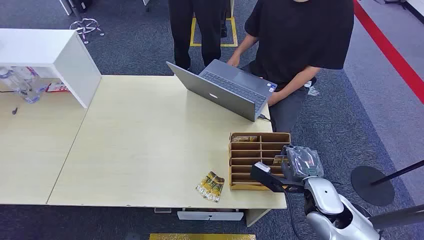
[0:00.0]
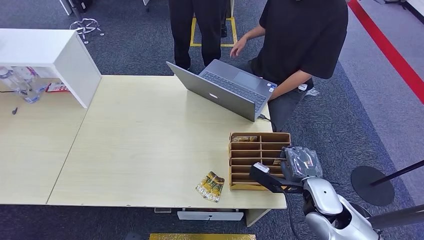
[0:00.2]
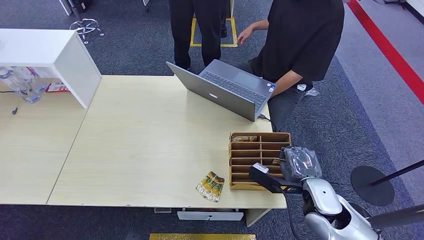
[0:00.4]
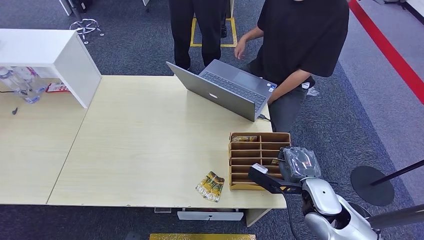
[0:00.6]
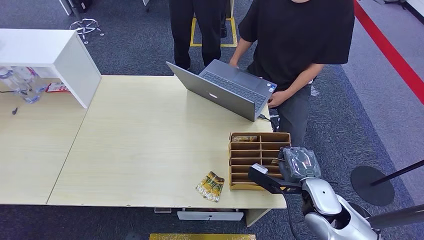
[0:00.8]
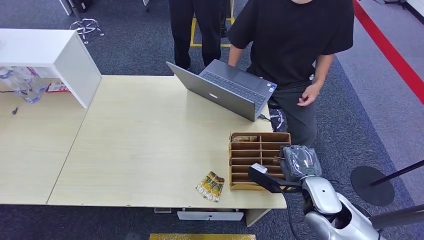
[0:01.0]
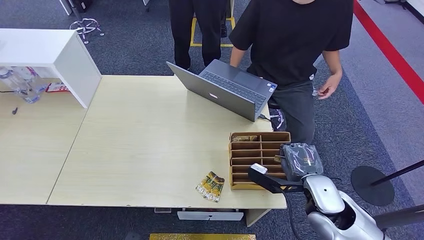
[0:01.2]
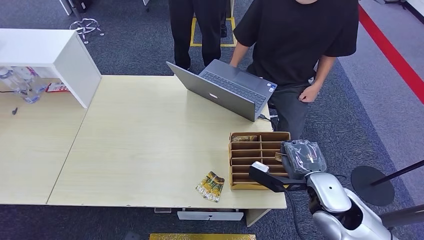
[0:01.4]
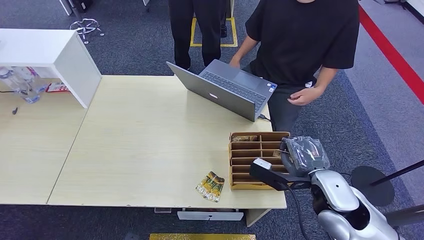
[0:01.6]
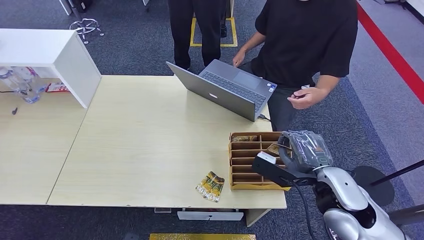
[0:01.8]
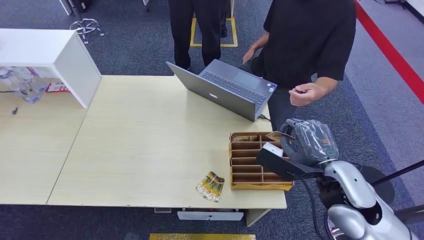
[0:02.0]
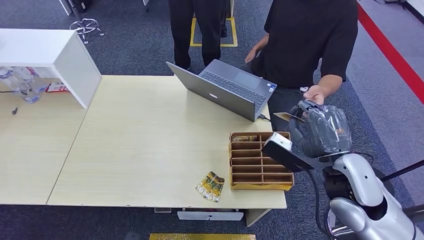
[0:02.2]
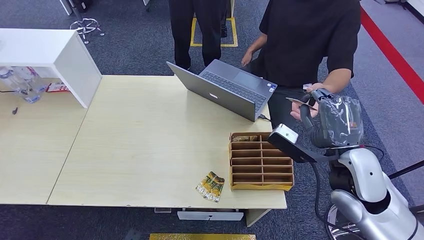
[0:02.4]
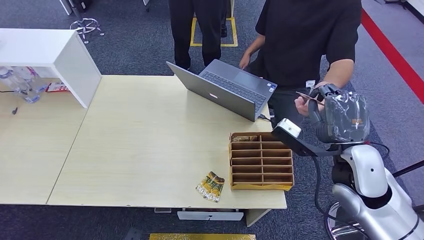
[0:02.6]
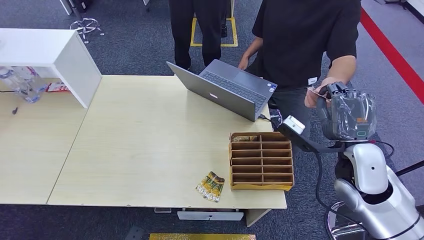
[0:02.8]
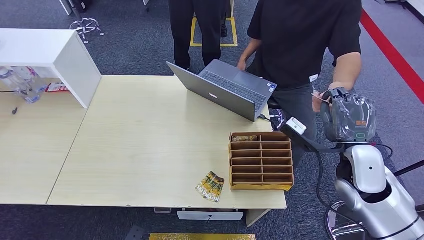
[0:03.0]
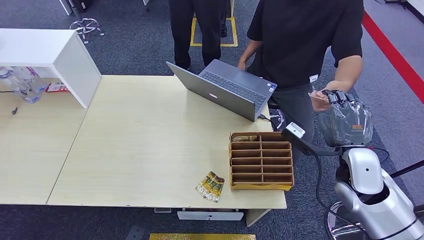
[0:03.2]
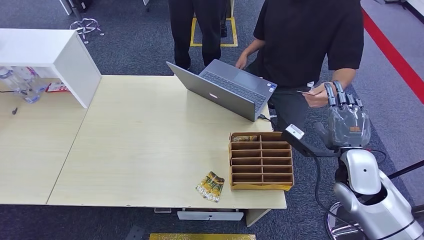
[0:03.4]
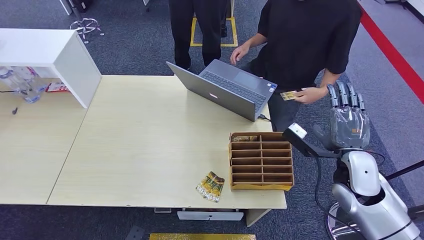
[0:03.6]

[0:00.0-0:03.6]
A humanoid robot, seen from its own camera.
Task of the whole recording: Pick up the card and hand it over to the target person.
Step, 0:00.0 to 0:02.2: Pick up the key card from the card box.
Step, 0:02.4 to 0:03.6: Hand the key card to the target.
0:01.8 to 0:03.6: The right hand moves downward, about 5 cm.

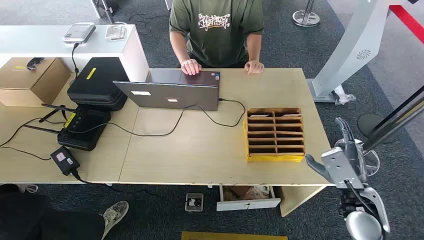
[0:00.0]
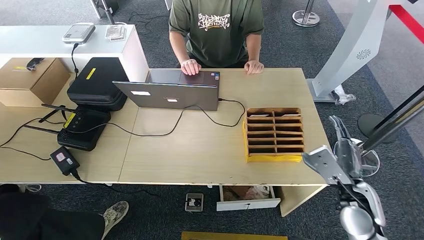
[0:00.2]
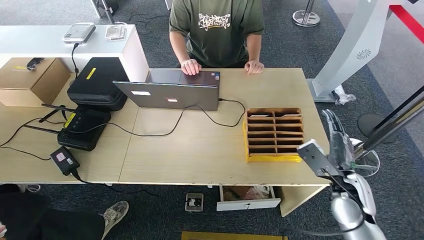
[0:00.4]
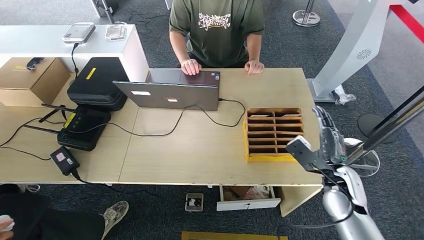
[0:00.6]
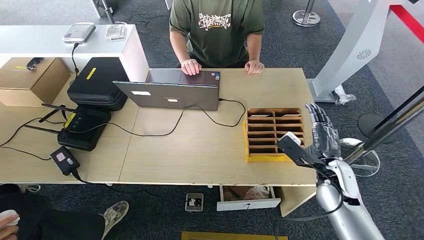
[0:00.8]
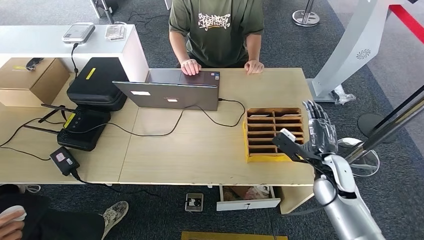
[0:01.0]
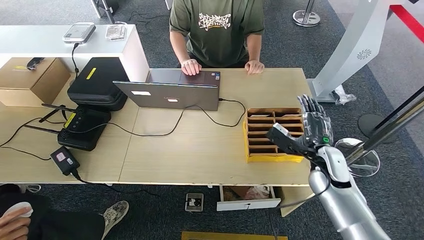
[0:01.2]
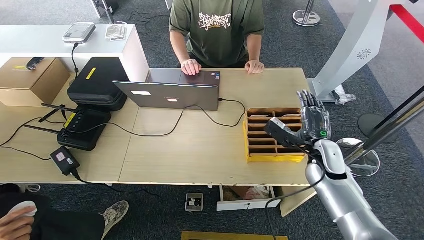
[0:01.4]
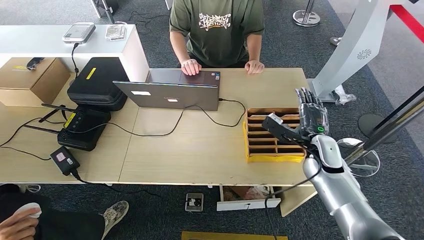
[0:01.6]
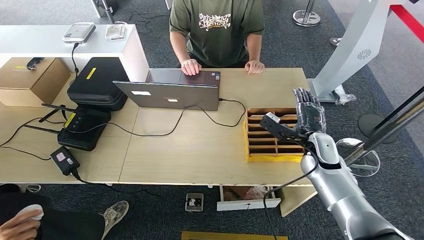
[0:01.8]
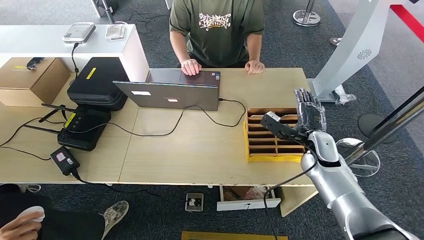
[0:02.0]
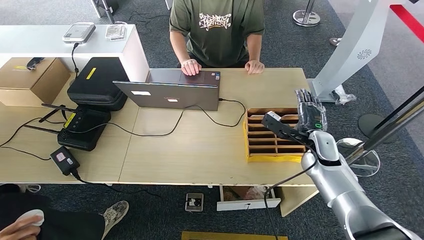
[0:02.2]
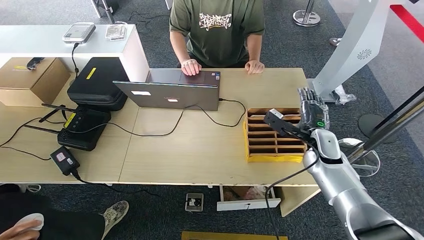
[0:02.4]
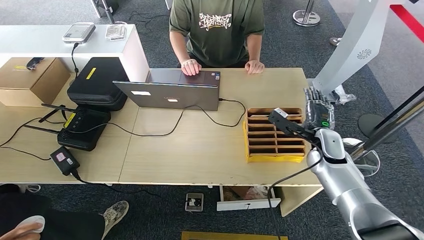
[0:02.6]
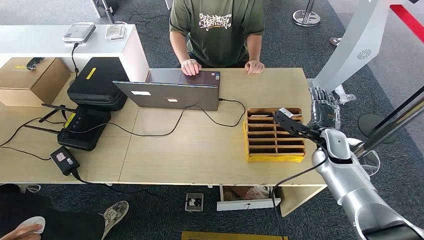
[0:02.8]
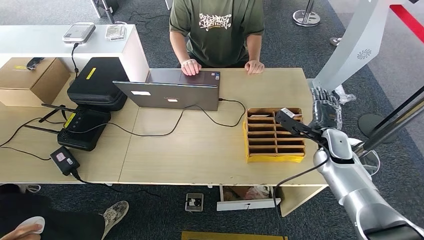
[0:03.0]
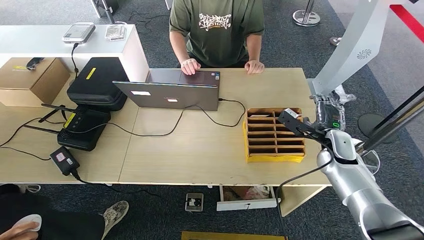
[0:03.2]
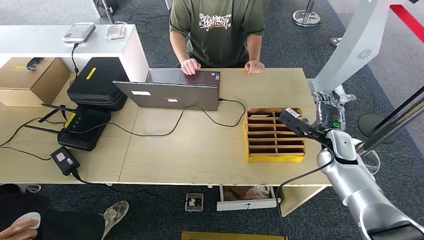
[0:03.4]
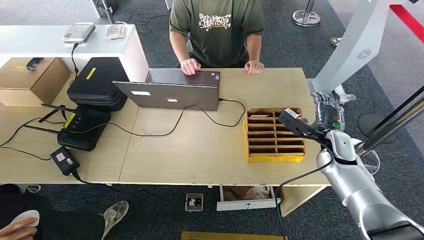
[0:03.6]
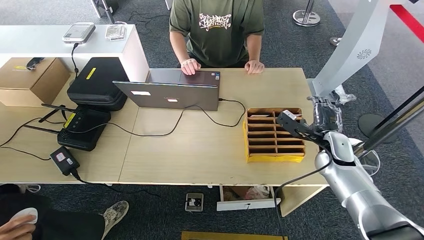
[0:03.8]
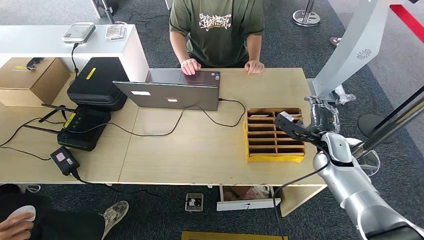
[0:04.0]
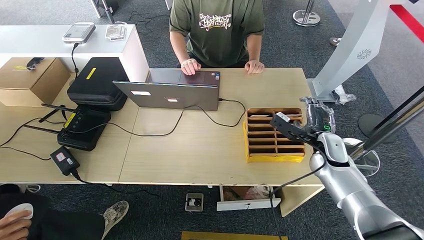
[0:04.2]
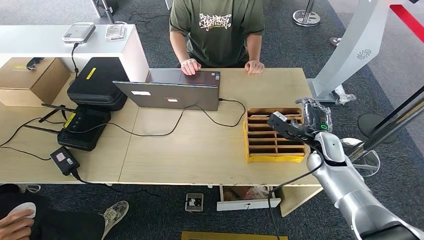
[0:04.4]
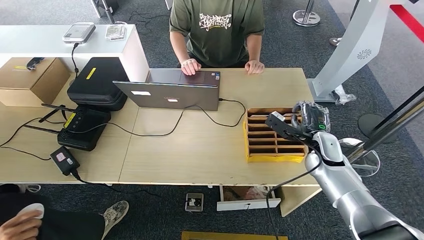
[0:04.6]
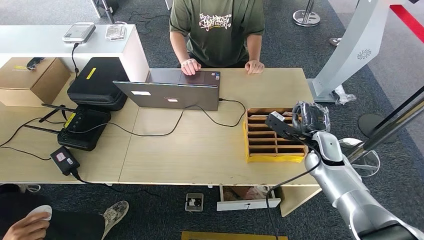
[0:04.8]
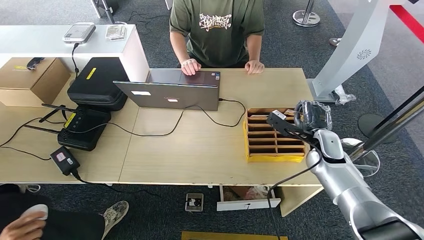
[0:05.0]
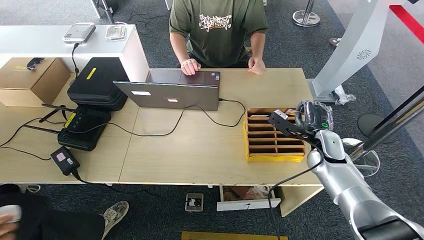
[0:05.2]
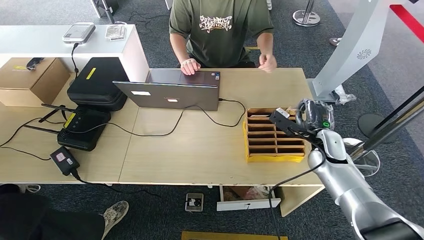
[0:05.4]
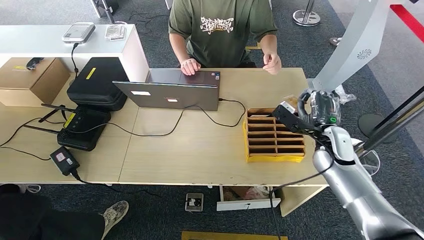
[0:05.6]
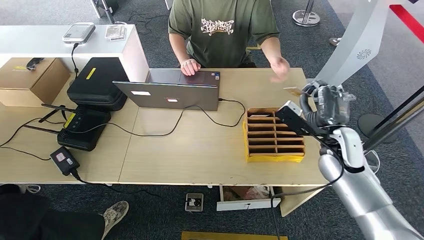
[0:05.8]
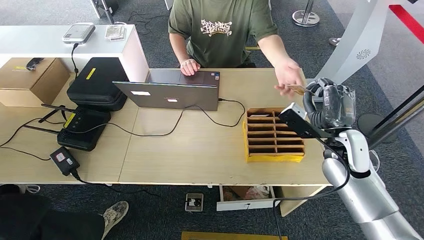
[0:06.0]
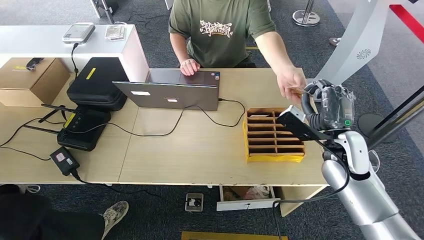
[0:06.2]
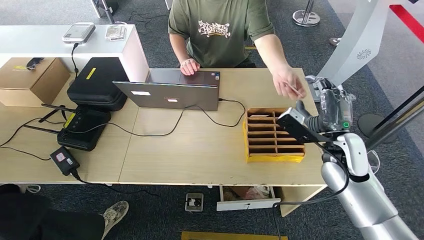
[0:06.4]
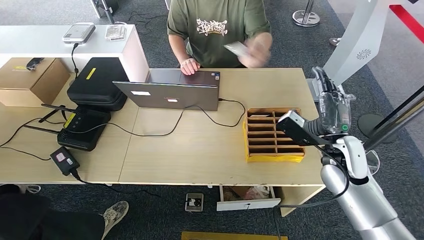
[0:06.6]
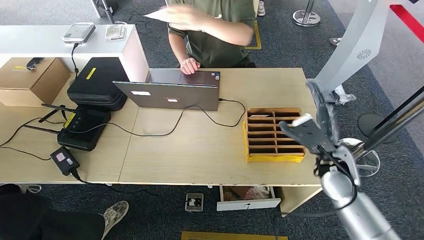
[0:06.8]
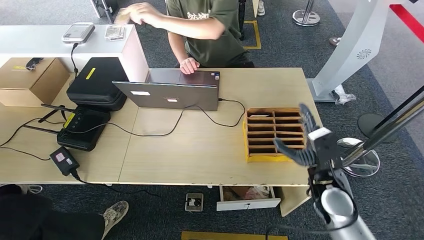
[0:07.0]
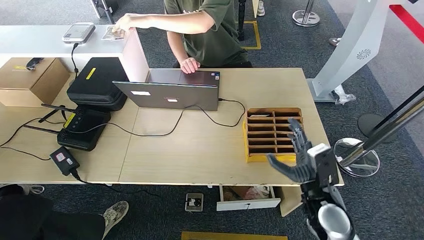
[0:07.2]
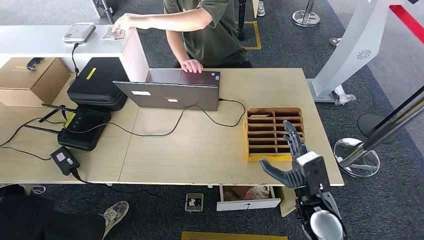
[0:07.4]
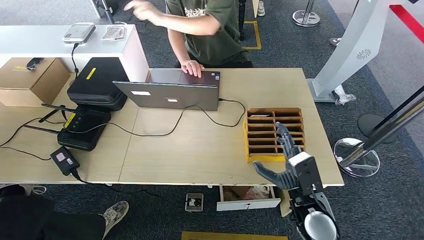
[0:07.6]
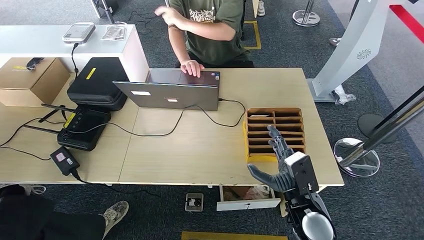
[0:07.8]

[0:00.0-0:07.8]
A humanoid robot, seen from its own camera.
Task of the whole recording: Pick up the card and hand it over to the target person.
Step, 0:00.0 to 0:05.6: Pick up the key card from the card box.
Step, 0:05.8 to 0:07.8: Hand the key card to the target.
0:01.6 to 0:03.2: The right hand shifts roughly 5 cm to the right.
0:03.2 to 0:04.6: The hands make only small movements.
0:04.6 to 0:06.2: The right hand moves upward and backward, approximately 10 cm.
0:06.2 to 0:07.8: The right hand is displaced downward, backward and to the left by approximately 15 cm.

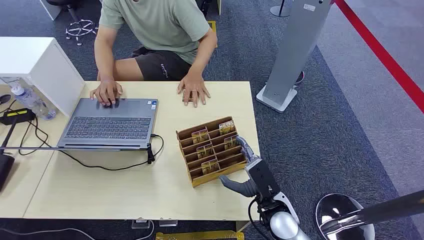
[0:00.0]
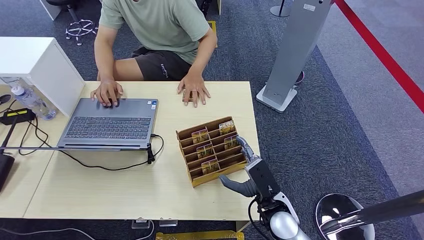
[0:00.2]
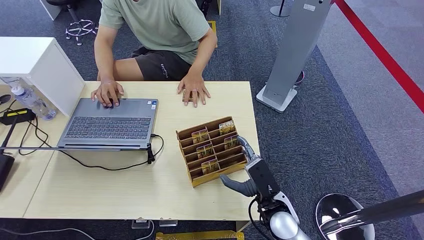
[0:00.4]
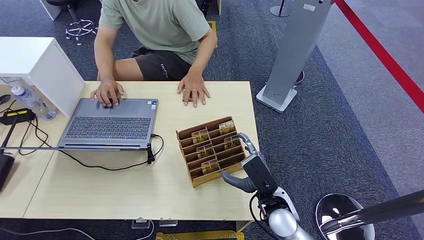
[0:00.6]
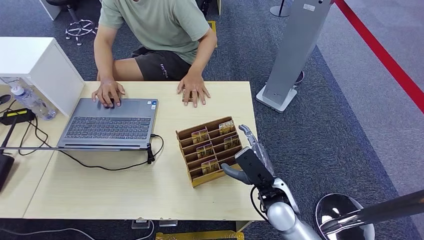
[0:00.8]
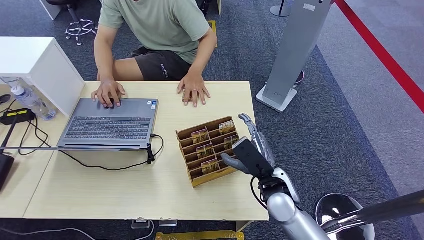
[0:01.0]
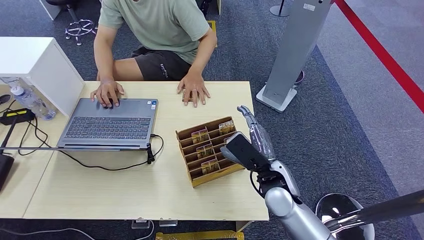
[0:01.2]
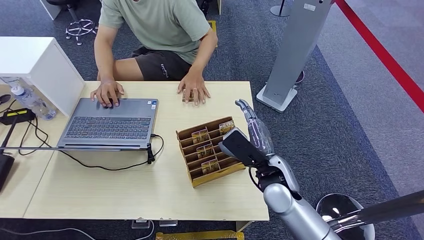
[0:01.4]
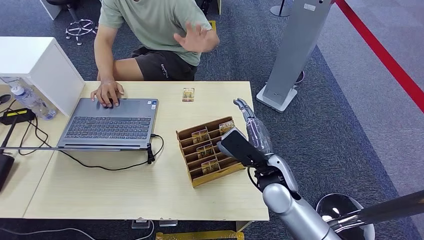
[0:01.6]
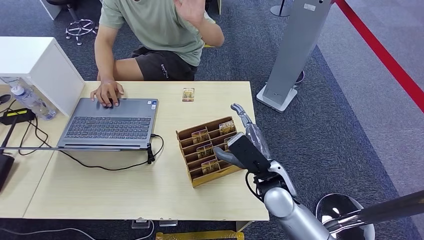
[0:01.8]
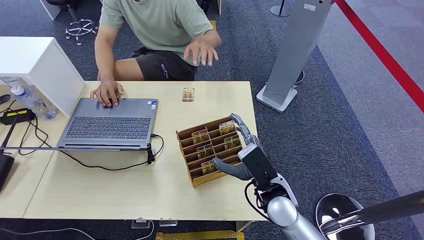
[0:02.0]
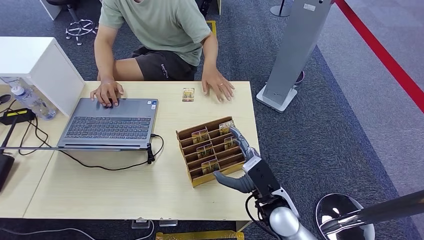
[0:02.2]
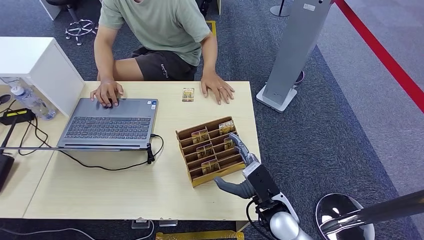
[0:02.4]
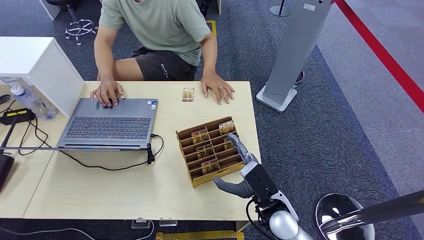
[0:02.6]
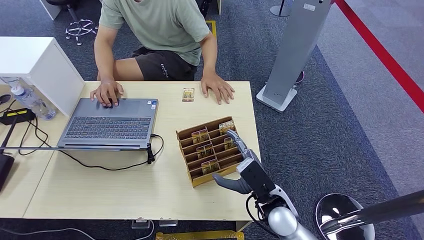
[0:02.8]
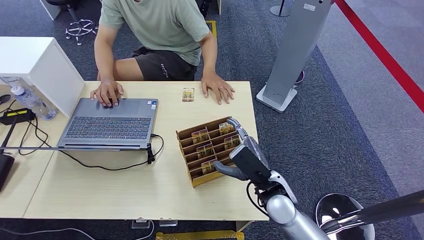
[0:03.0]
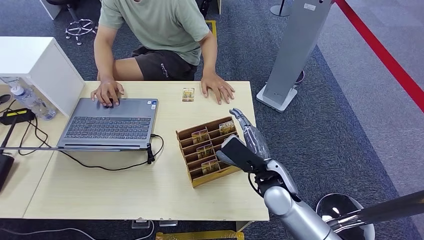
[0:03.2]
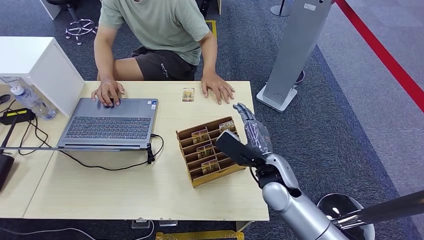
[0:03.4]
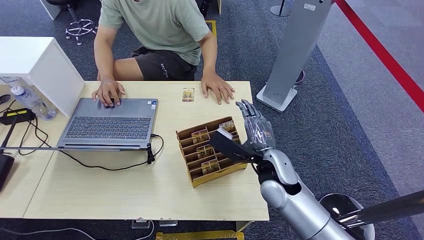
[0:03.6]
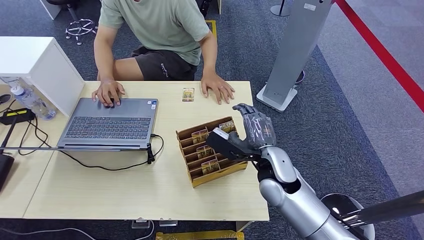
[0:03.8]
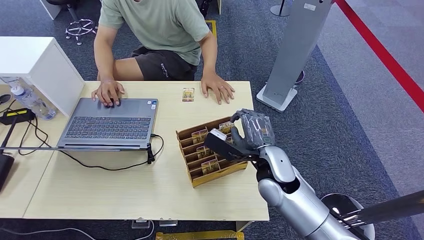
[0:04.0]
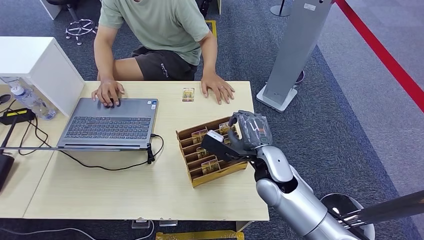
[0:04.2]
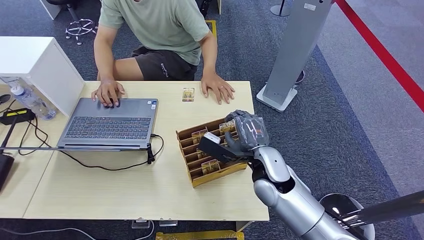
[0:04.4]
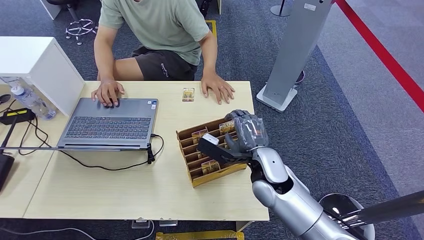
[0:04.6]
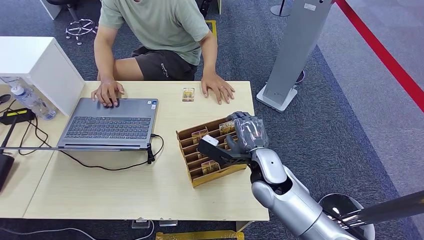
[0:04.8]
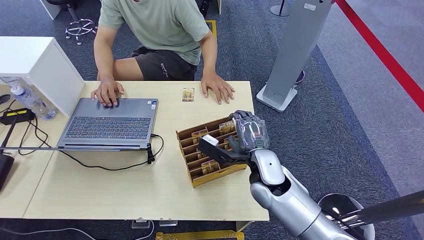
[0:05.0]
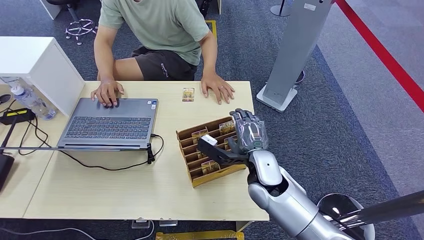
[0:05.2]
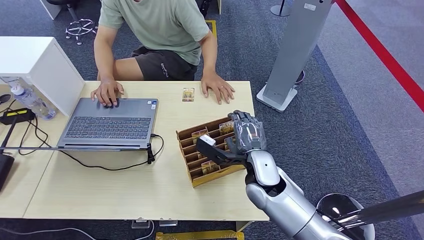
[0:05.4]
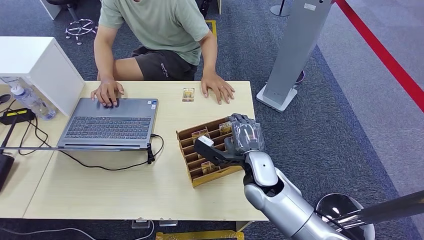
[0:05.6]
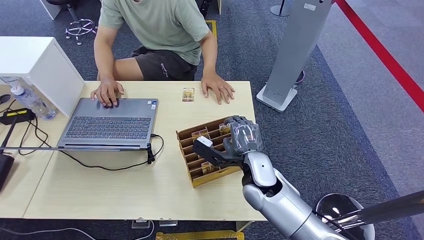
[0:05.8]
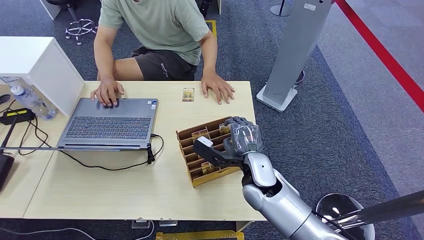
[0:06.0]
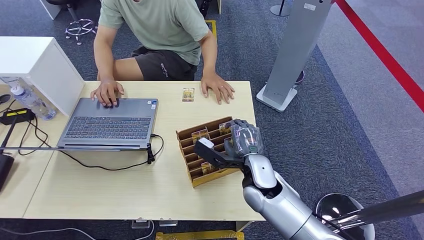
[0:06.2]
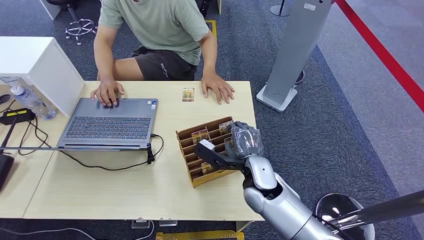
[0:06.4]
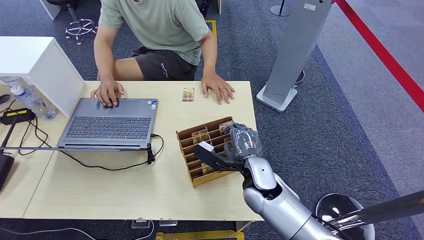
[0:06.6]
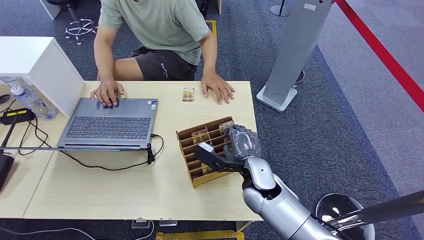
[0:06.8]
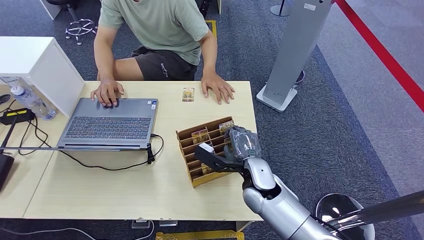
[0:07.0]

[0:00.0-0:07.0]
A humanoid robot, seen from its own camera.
Task of the whole recording: Pick up the card and hand it over to the target person.
0:01.4 to 0:02.8: The right hand is displaced downward by roughly 5 cm.
0:02.8 to 0:04.2: The right hand shifts by some 5 cm.
0:04.2 to 0:07.0: The hands stay close to where they were, moving slightly.
